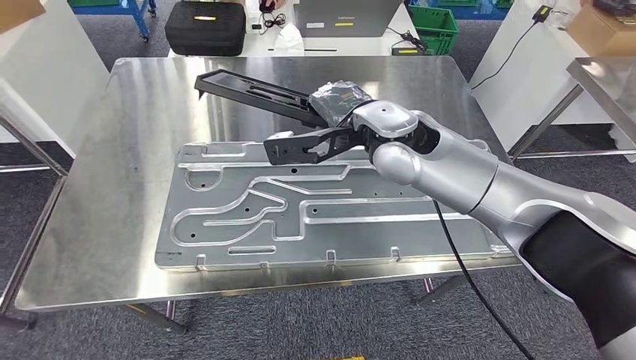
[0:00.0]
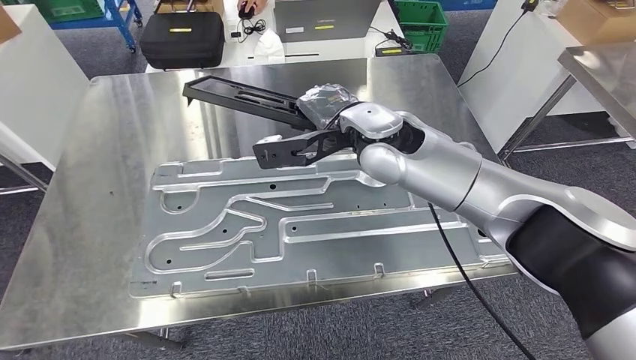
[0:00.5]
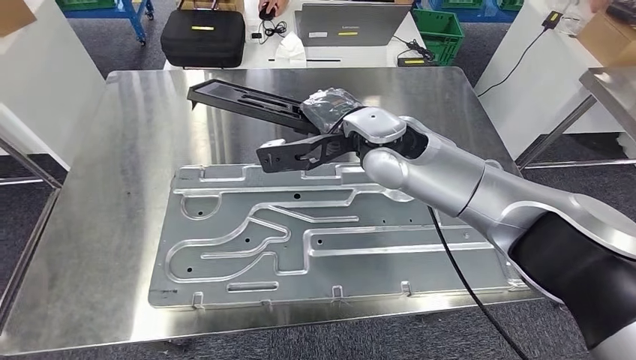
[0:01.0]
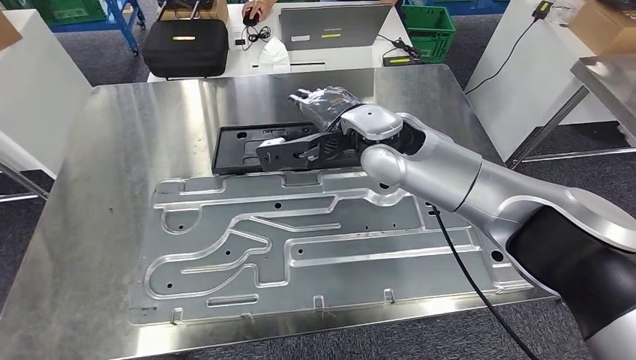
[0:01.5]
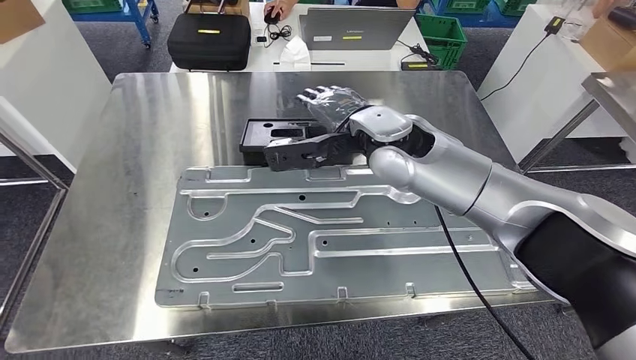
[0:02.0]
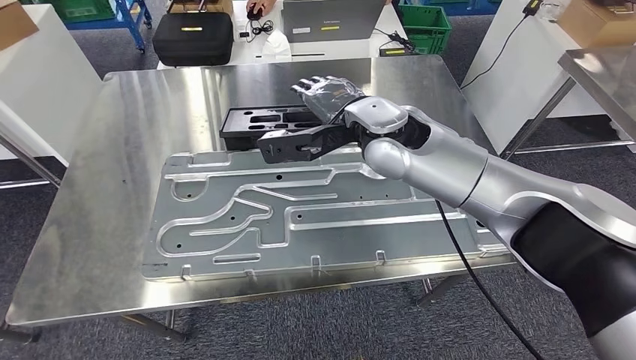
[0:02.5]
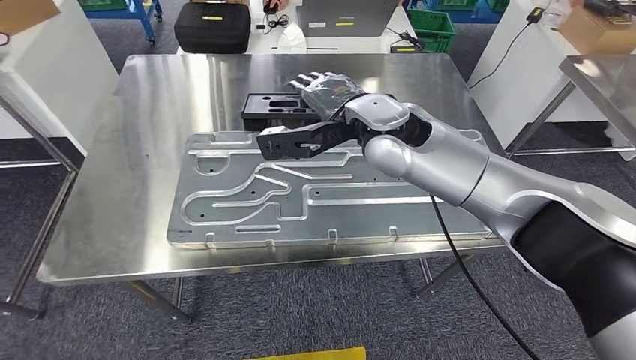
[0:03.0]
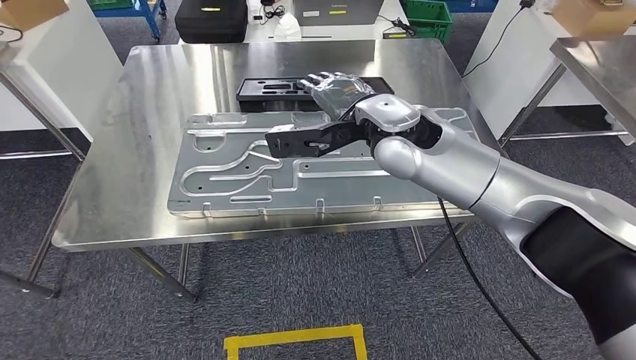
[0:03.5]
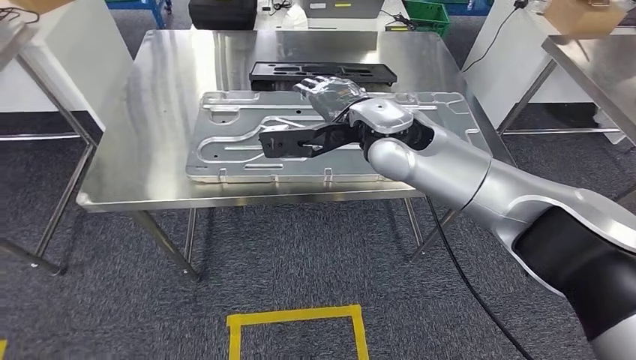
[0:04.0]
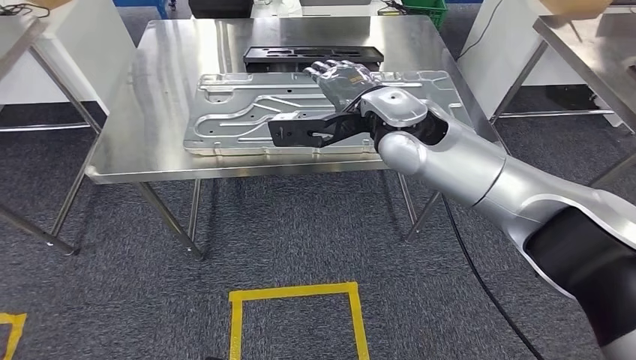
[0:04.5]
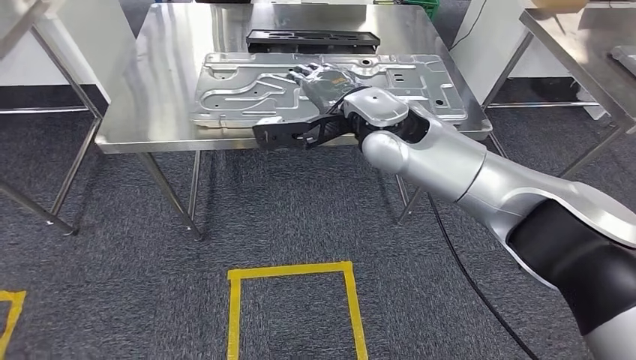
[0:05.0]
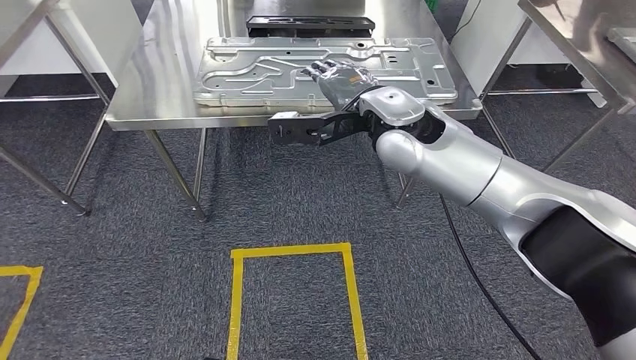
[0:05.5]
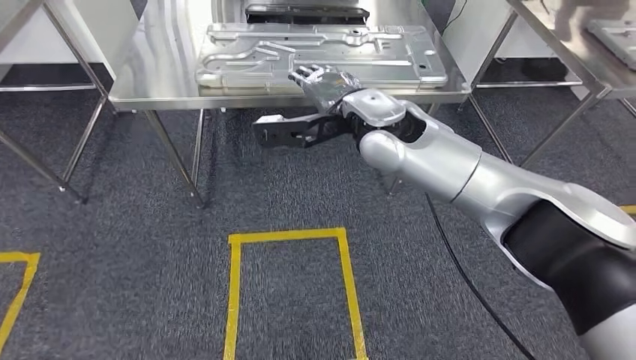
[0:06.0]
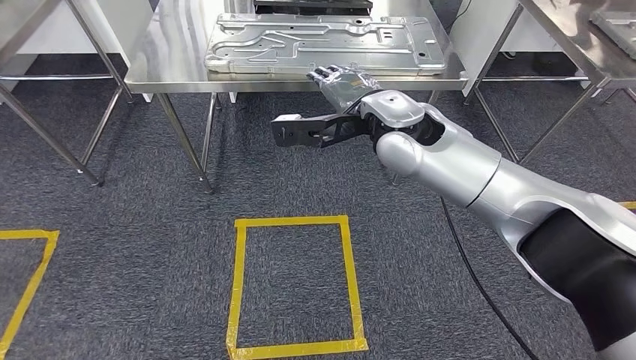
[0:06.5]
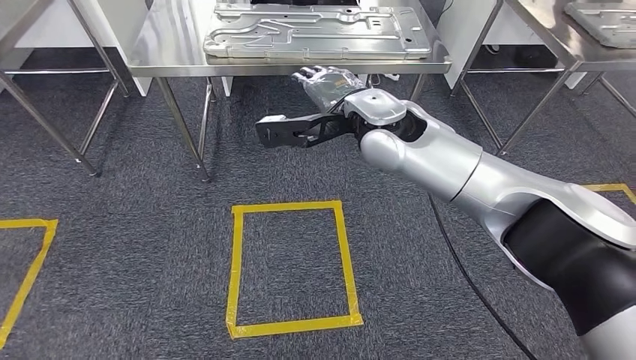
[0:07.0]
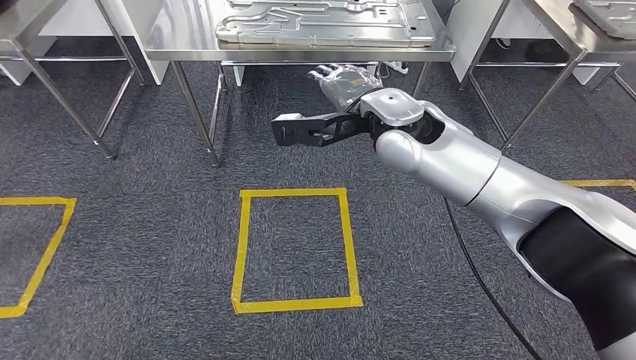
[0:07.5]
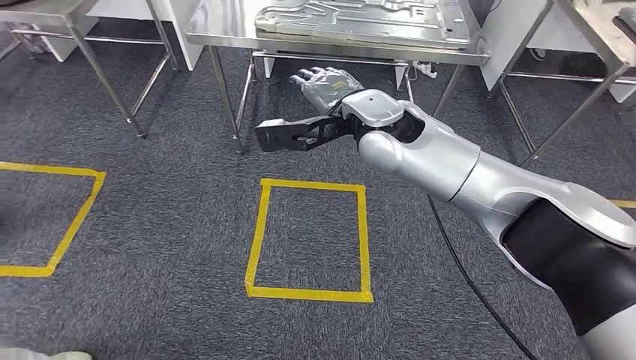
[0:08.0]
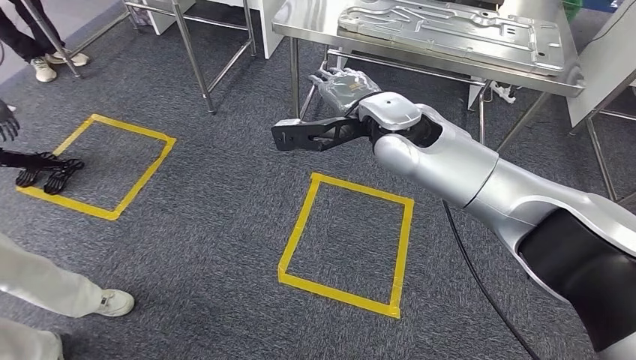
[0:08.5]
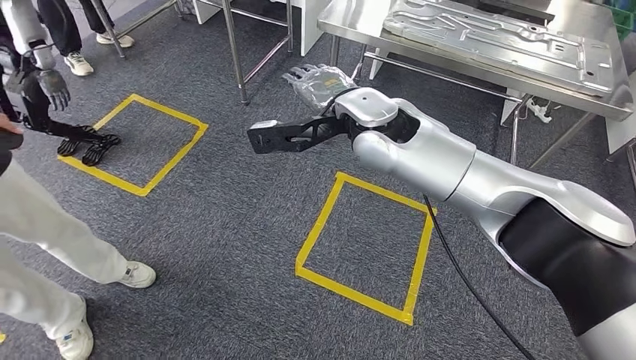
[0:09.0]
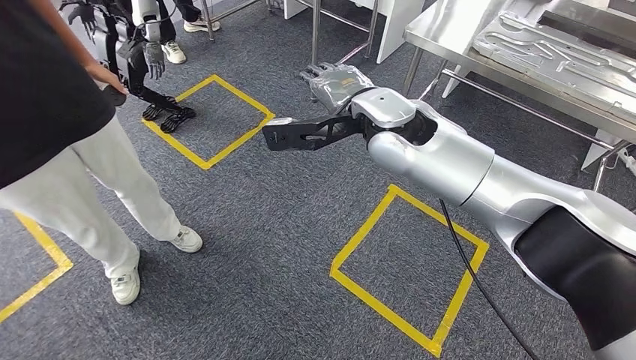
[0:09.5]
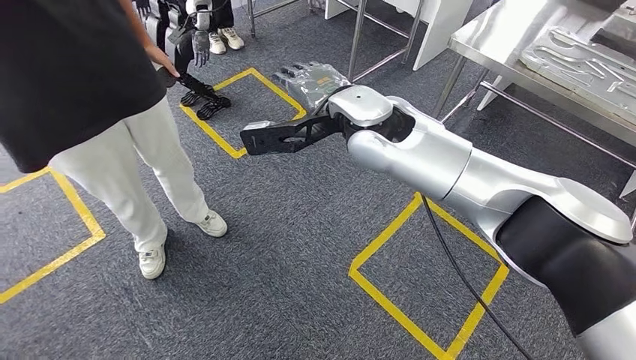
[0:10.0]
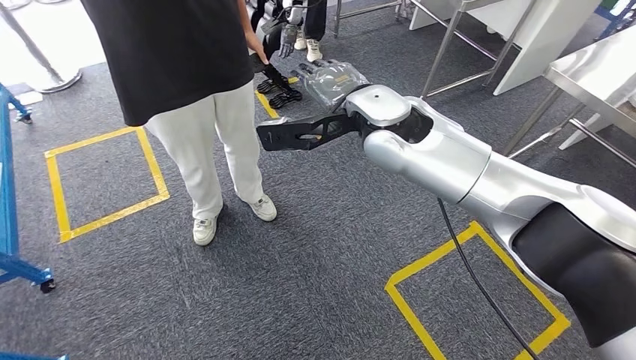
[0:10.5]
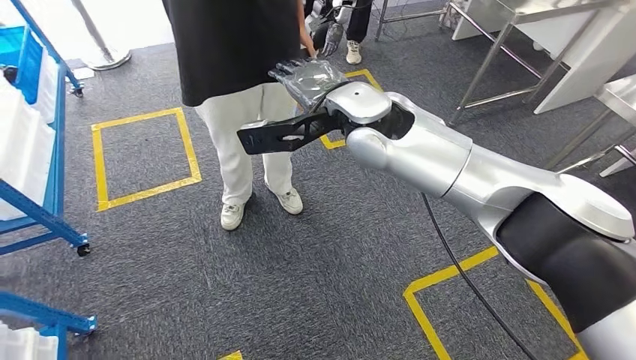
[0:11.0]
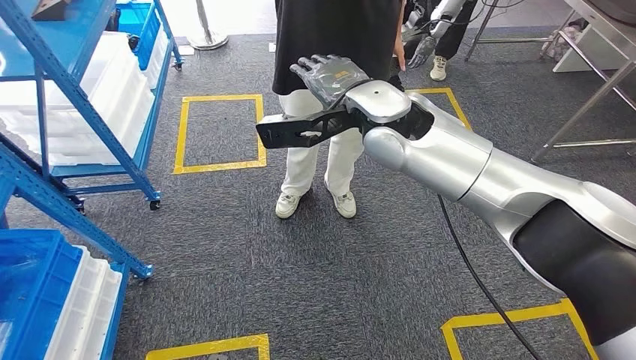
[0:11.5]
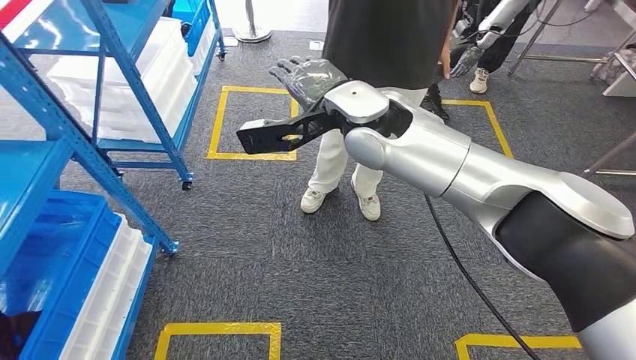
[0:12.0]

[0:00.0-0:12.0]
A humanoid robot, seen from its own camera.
Step, 0:00.0 to 0:05.0: Insert the large parts into the corresponding slots on the workbench.

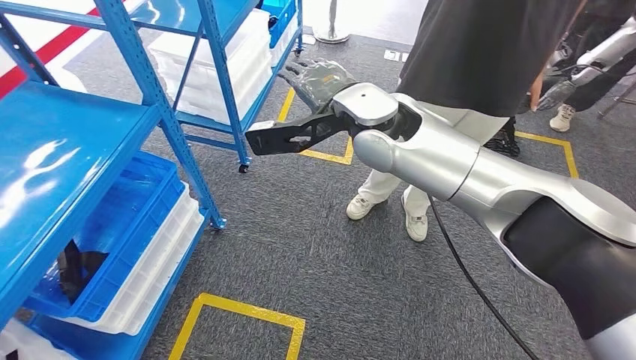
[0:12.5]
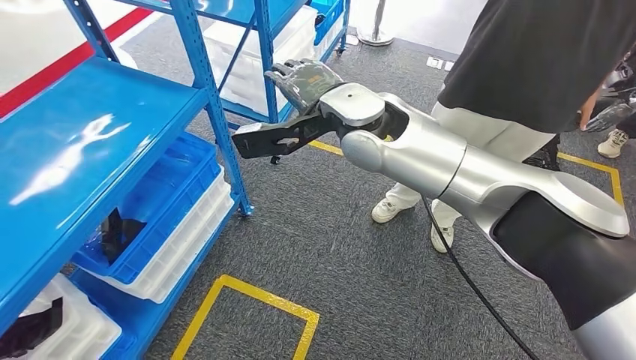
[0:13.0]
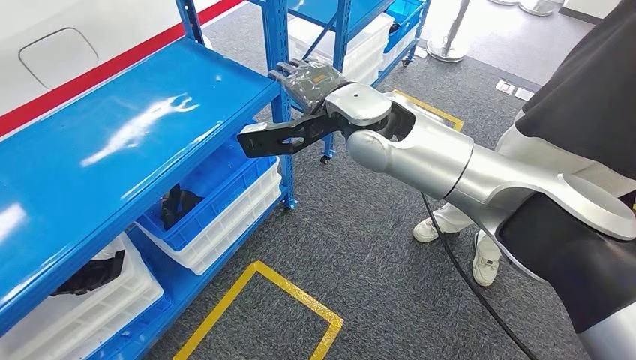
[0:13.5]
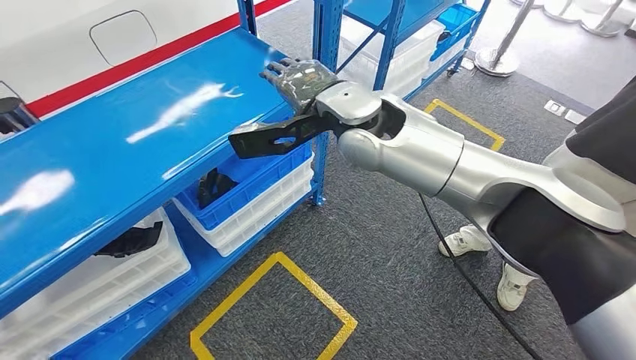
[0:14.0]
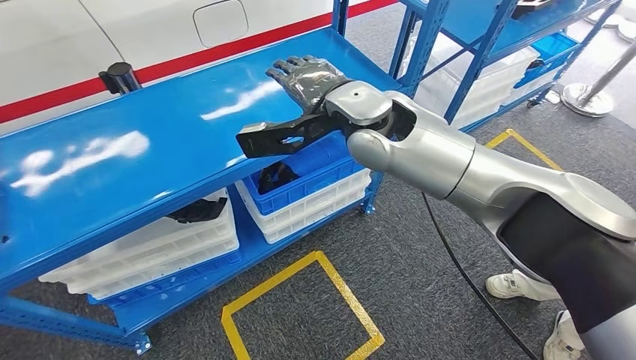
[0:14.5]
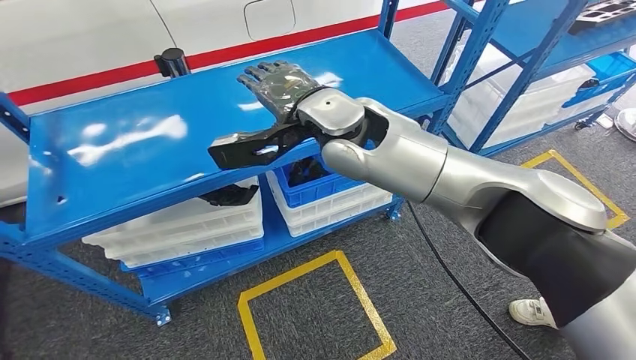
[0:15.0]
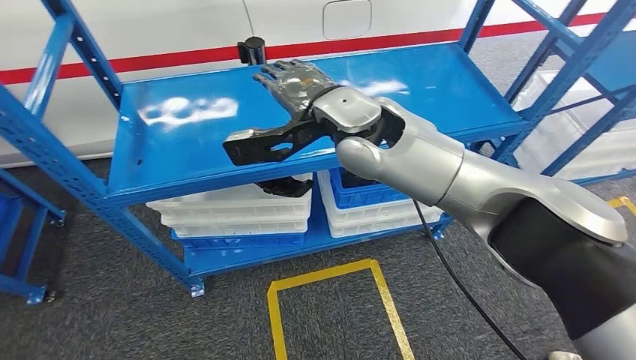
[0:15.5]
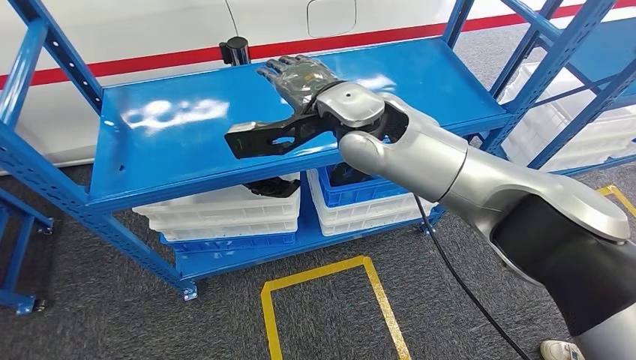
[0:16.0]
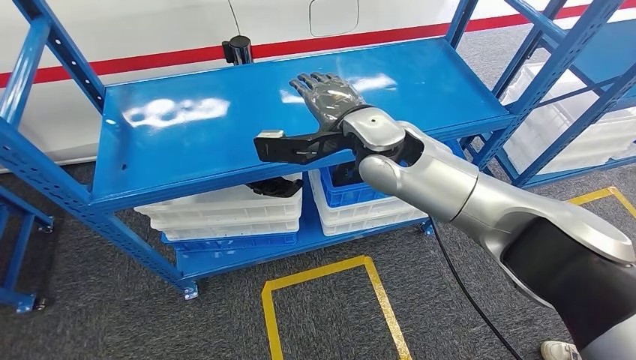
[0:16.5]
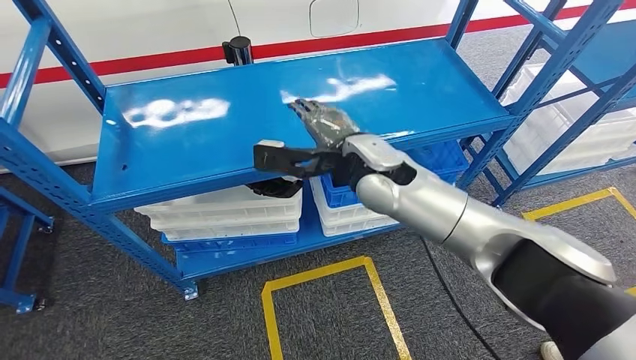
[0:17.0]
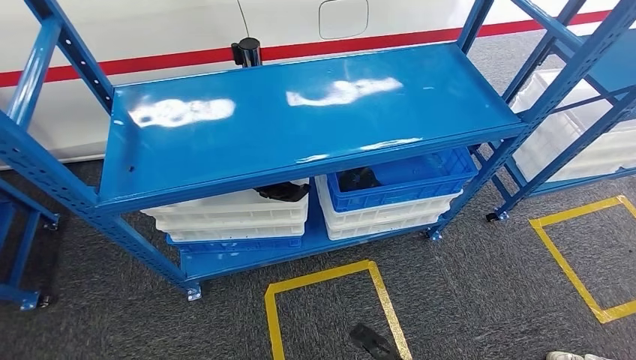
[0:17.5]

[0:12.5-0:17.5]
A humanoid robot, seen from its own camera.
Step, 0:12.5 to 0:17.5: Return to the initial position at the shelf.
